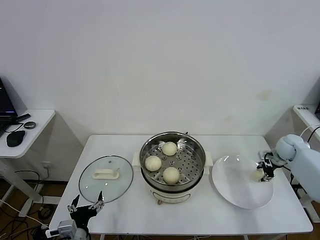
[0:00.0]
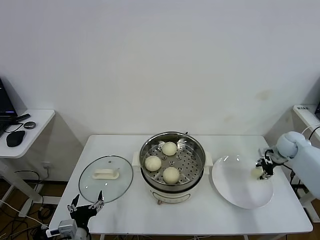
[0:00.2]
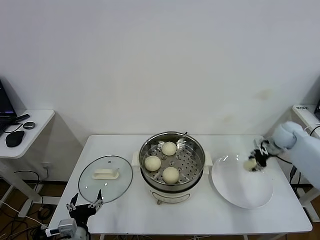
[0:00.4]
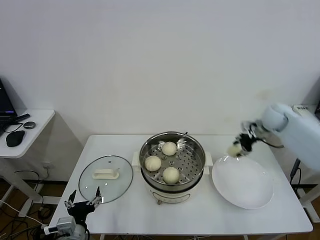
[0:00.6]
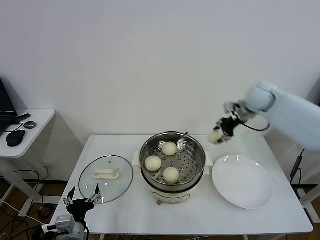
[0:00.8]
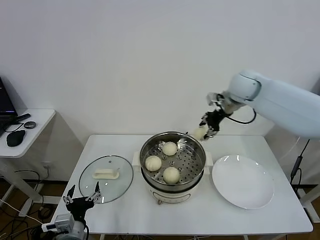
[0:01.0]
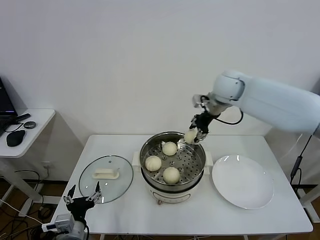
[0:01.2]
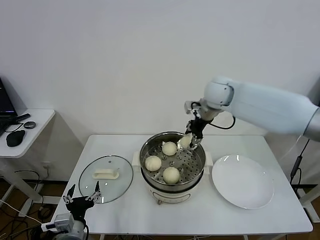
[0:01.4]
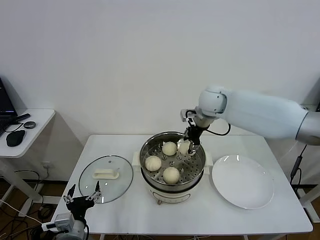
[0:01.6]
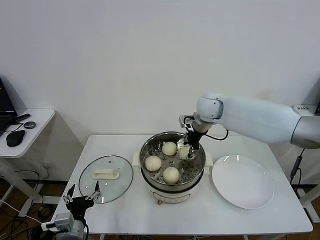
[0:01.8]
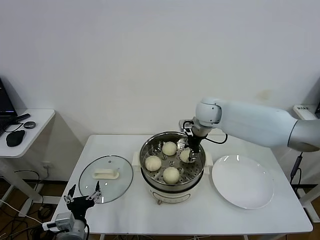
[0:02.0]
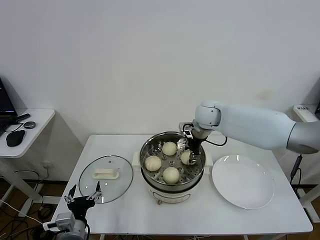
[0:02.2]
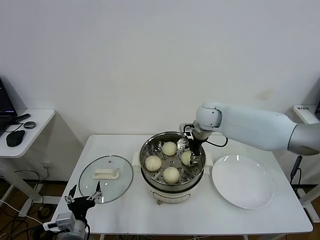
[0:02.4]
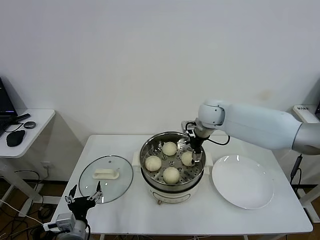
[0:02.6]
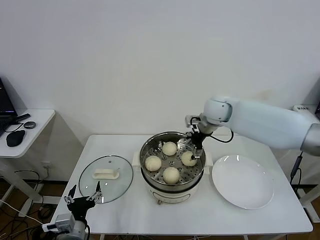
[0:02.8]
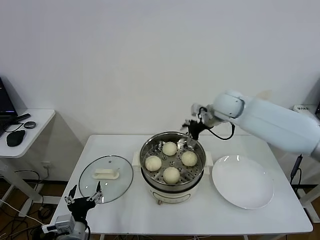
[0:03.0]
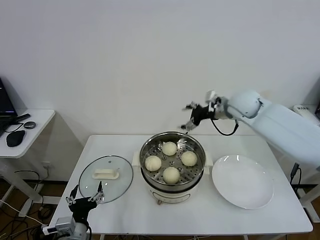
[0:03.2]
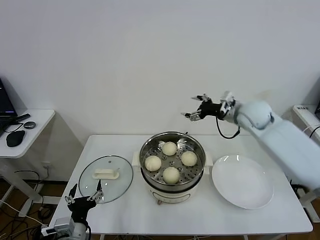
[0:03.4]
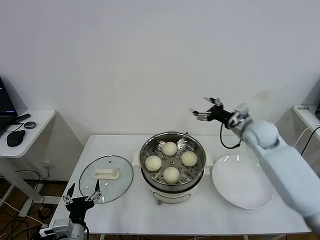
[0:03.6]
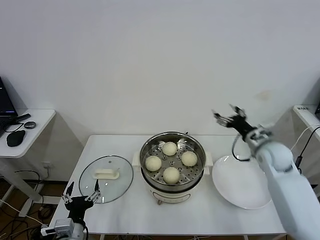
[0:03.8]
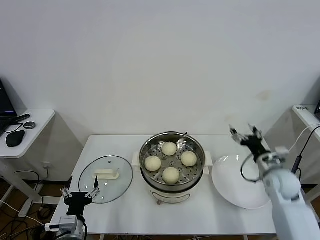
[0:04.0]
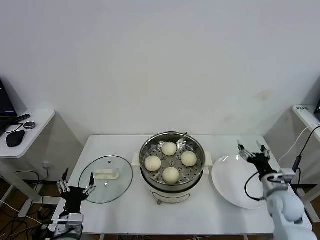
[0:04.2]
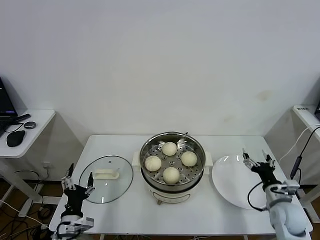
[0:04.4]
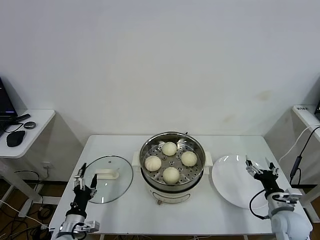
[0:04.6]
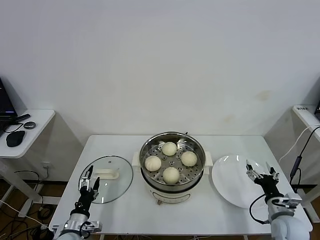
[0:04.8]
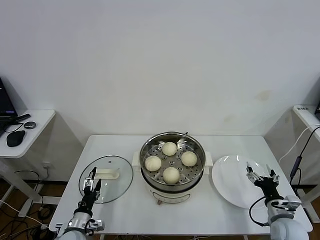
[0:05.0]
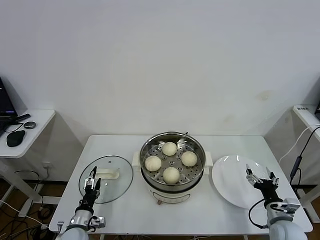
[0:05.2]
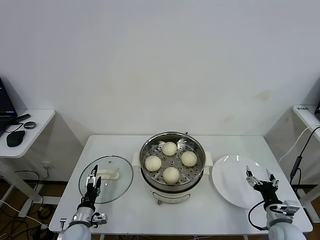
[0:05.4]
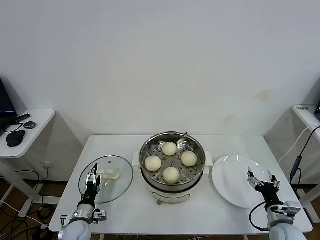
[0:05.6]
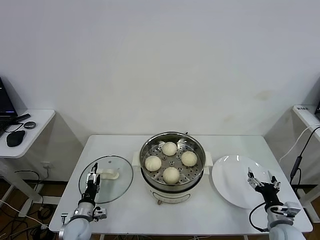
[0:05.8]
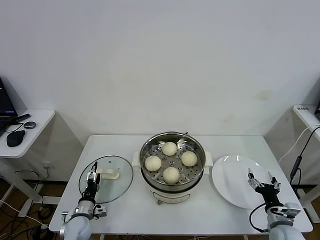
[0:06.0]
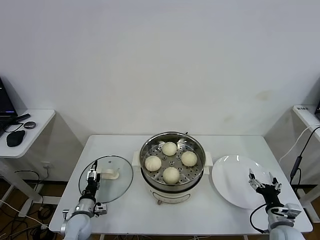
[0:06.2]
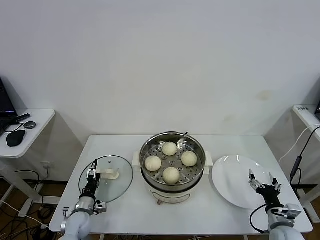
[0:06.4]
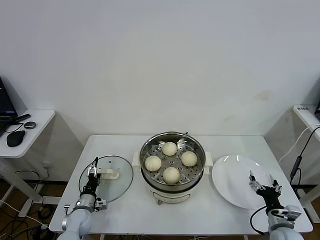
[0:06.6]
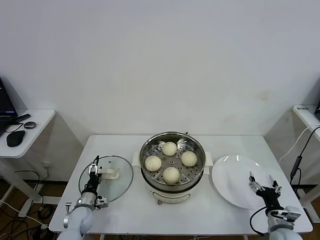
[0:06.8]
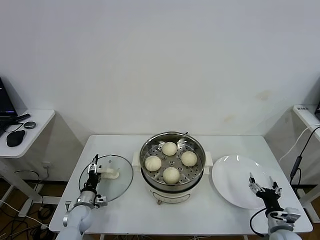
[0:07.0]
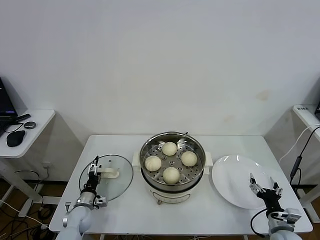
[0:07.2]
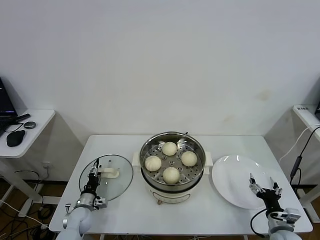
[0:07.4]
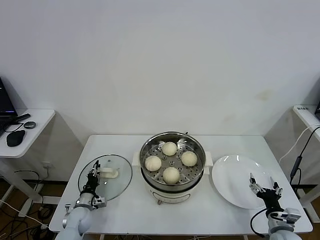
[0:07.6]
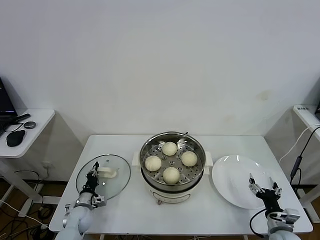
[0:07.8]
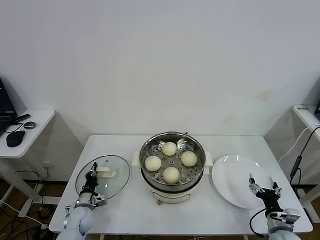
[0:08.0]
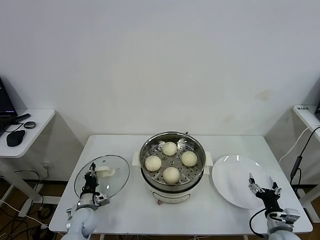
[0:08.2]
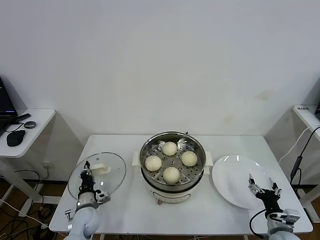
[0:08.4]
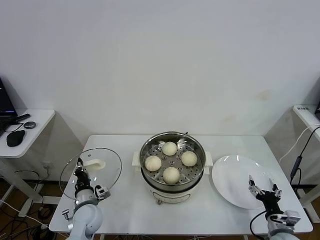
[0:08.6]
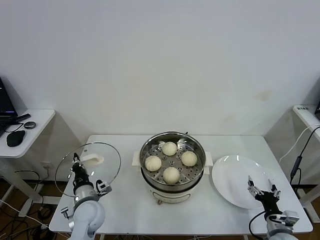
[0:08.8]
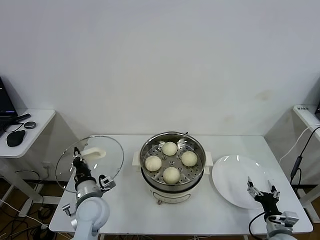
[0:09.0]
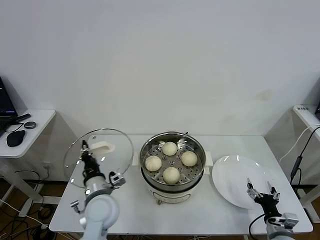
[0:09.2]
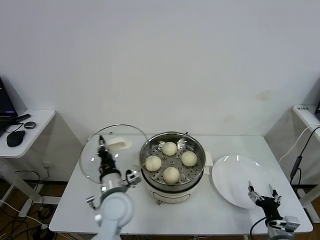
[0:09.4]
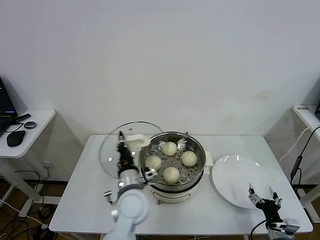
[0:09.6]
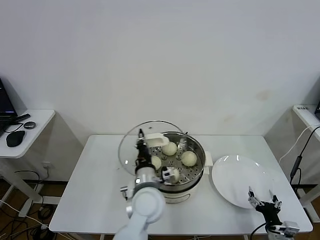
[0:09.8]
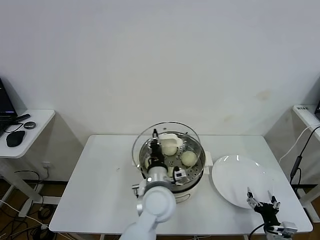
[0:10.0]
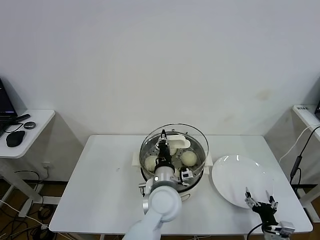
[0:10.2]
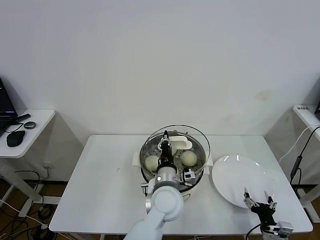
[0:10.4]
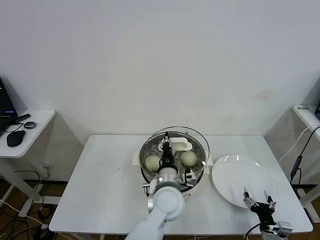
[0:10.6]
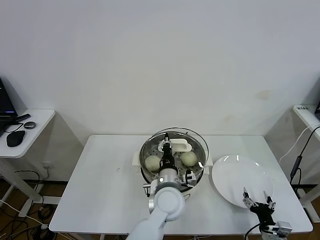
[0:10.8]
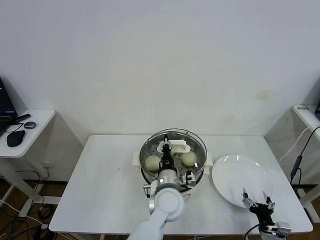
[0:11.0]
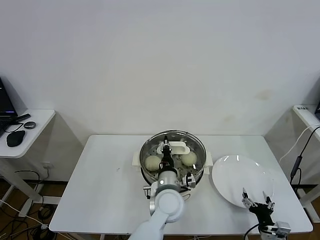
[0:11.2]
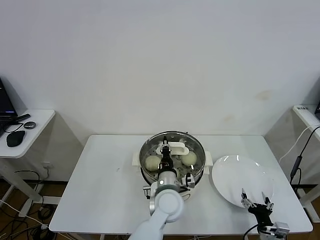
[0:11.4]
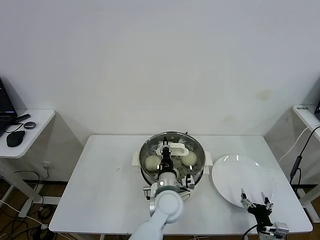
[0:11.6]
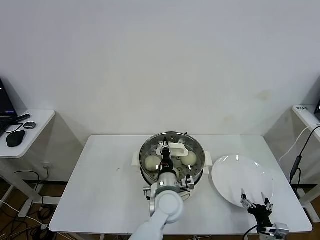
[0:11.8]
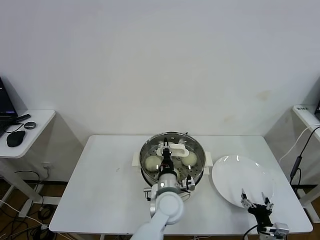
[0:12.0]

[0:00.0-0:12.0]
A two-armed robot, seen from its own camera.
Task of the whole recording: take steamed baozi put them in steamer.
Step, 0:00.0 to 0:03.0: Place the baozi on the steamer with right gripper.
Step, 0:03.2 to 0:08.0: Grasp the pot lid with left gripper.
0:00.0 to 0:01.6: The right gripper travels to the left and upward by about 40 cm.
0:01.6 to 0:03.0: The right gripper opens its fingers.
0:03.0 to 0:04.4: The left gripper shifts by about 5 cm. Meanwhile the right gripper heads backward, downward and to the right, covering about 40 cm.
0:04.4 to 0:06.0: The right gripper is displaced backward and downward by roughly 10 cm, while the left gripper travels downward and forward by about 15 cm.
0:06.0 to 0:07.6: The left gripper shifts by about 5 cm, and closes its fingers.
0:07.6 to 0:09.0: The left gripper heads upward and to the right, covering roughly 20 cm, and closes.
0:09.0 to 0:10.4: The left gripper moves to the right, roughly 25 cm.
0:10.4 to 0:12.0: The left gripper goes about 5 cm downward.

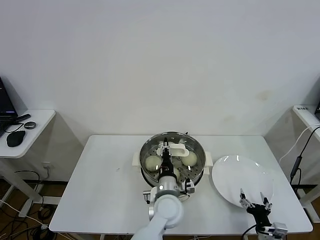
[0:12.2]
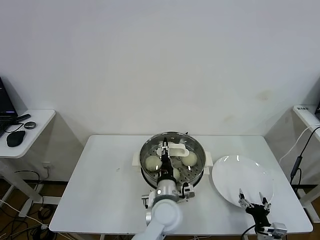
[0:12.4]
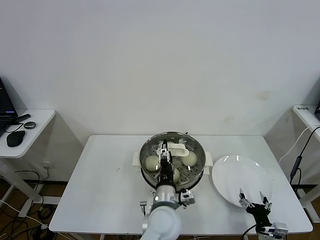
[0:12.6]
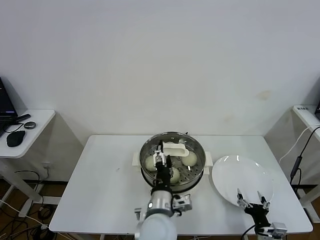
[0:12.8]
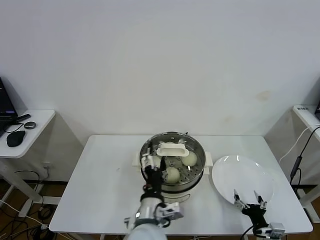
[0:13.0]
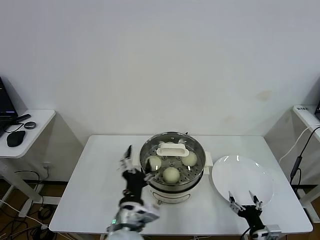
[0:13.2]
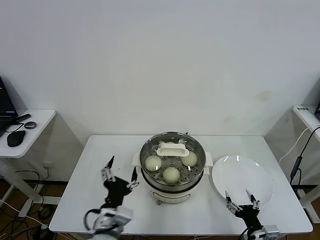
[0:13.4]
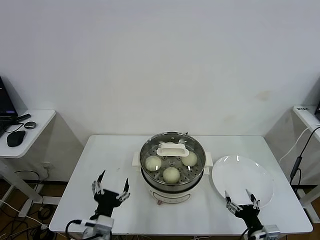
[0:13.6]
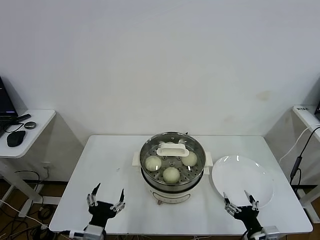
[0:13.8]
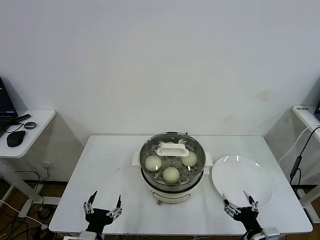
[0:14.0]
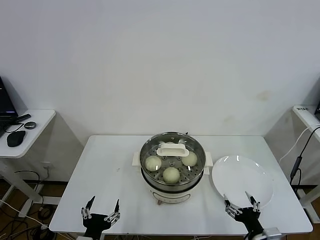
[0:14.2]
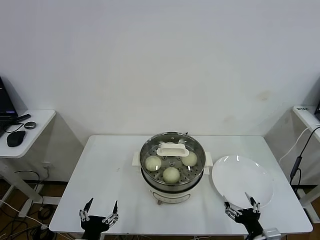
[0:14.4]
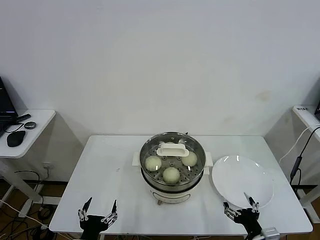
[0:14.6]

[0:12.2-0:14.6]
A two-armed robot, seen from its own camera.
Task of the whole recording: take steamed baozi put them in steamer.
0:12.2 to 0:13.4: The left gripper goes approximately 20 cm to the left, backward and upward, and opens its fingers. Meanwhile the right gripper ends up about 5 cm from where it was.
0:13.4 to 0:14.6: The left gripper moves to the left, downward and backward, approximately 15 cm, while the right gripper is displaced upward by some 5 cm.

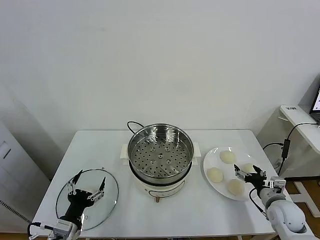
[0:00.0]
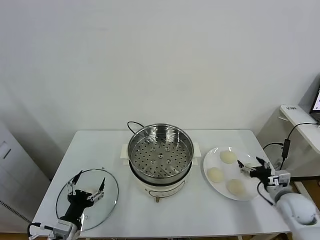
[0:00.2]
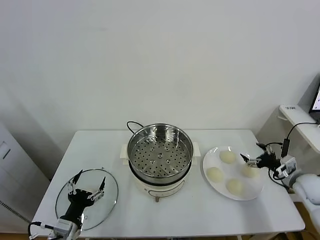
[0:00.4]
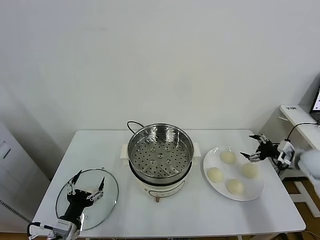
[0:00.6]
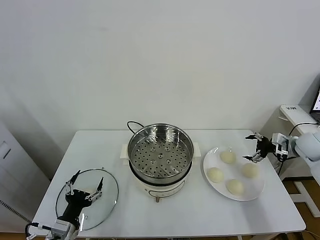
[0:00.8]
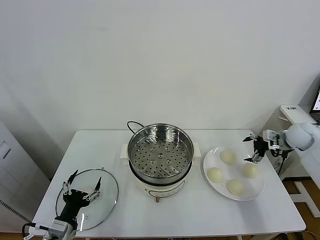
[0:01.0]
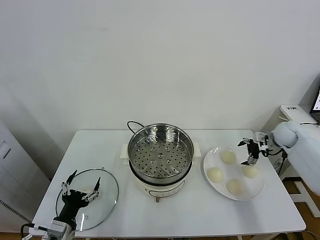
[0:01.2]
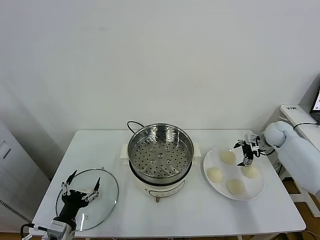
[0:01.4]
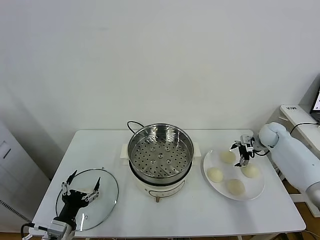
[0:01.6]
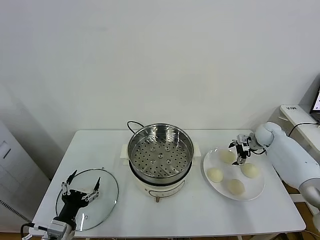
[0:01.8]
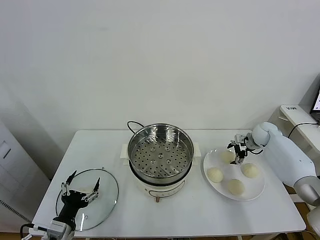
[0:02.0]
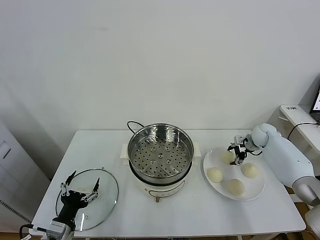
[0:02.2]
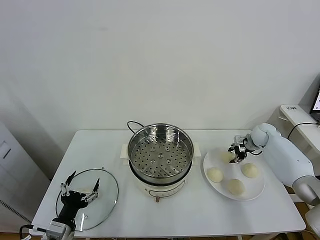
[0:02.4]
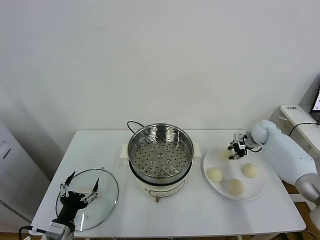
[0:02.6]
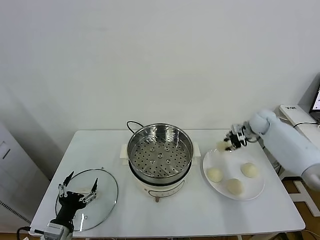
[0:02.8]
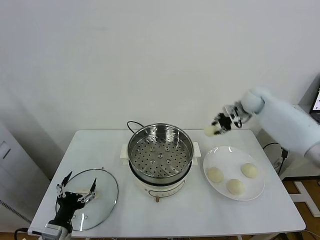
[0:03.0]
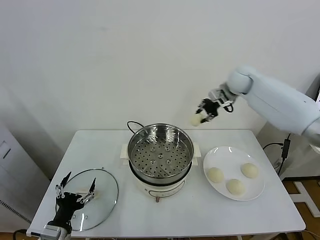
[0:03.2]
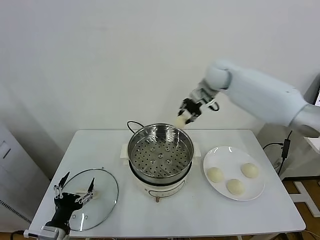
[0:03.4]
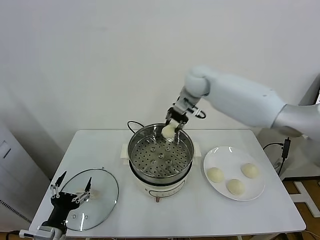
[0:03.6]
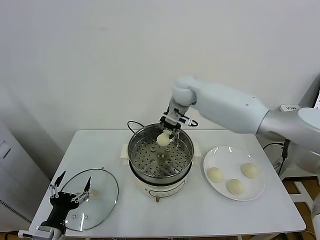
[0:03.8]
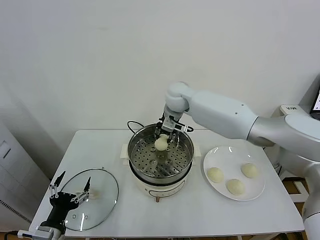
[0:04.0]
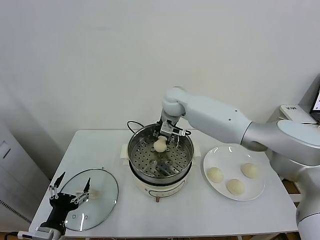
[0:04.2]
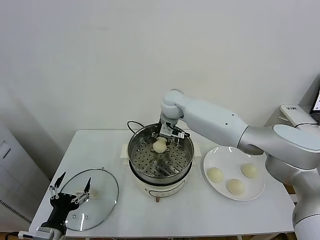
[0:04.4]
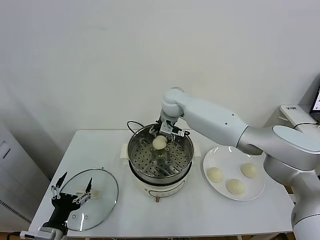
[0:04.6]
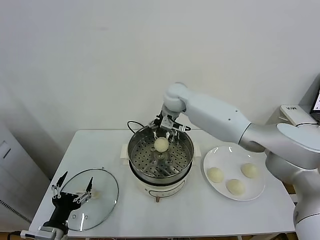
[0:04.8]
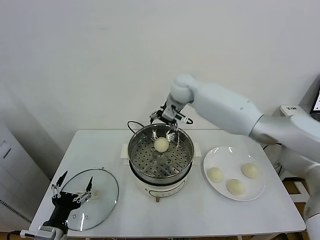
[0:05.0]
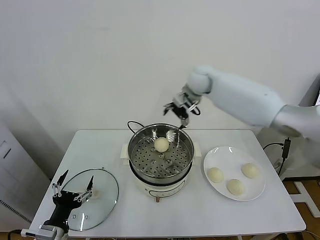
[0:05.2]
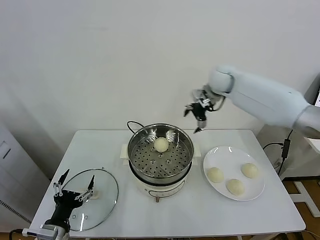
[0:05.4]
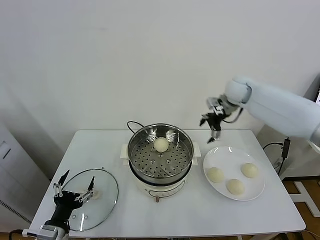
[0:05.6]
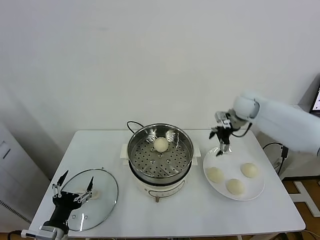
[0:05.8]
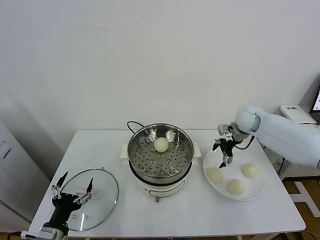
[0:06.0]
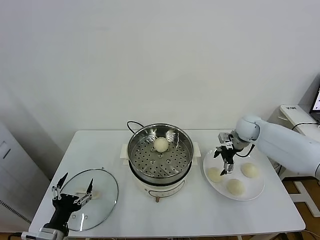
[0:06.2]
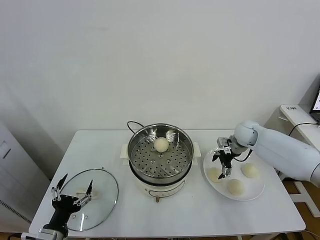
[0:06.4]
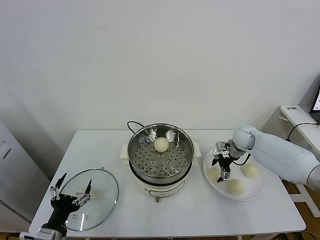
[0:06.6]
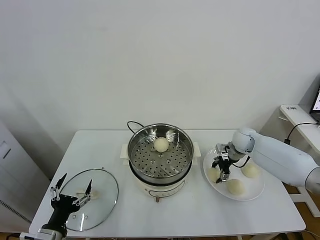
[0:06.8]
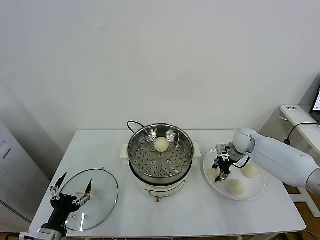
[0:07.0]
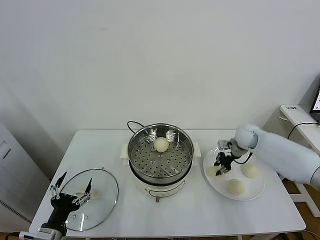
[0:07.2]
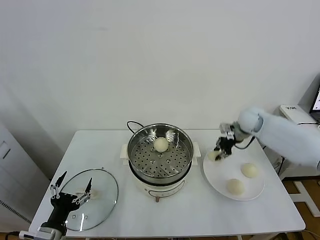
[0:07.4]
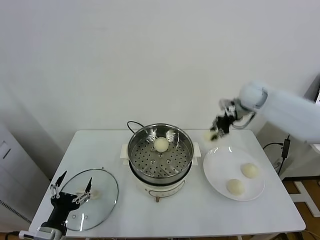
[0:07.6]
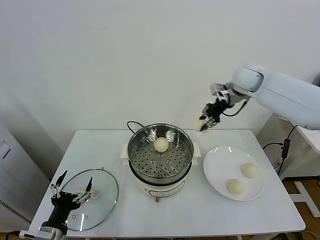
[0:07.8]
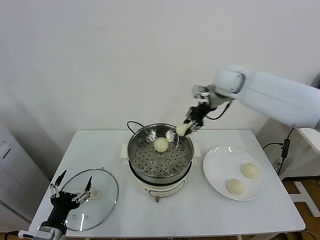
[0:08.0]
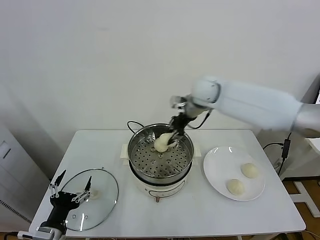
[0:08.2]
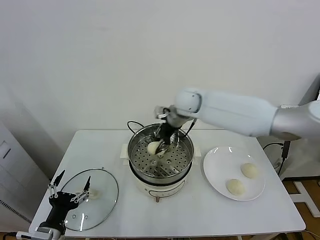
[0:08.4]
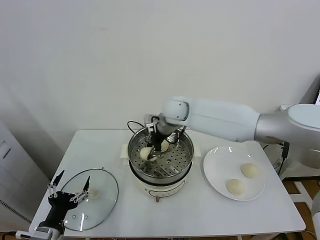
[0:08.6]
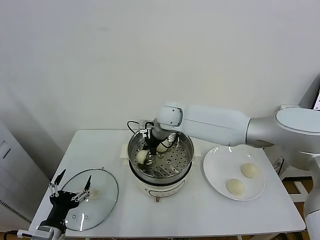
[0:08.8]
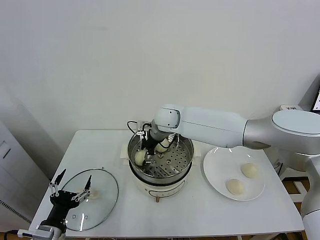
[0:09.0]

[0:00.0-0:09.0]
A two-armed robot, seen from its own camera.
Task of the whole recording: take steamed baozi put them in steamer.
Step, 0:00.0 to 0:02.2: Grasp the baozi in the plate with right gripper.
Step, 0:02.4 to 0:04.6: Place the baozi on the steamer with right gripper.
Step, 0:04.8 to 0:06.6: Grasp the baozi in the plate with right gripper.
0:01.6 to 0:03.0: The right gripper travels upward and to the left by approximately 20 cm, and closes up.
0:03.0 to 0:04.4: The right gripper travels to the left by approximately 30 cm, and opens its fingers.
0:04.4 to 0:06.0: The right gripper travels to the right by some 30 cm, and opens its fingers.
0:06.0 to 0:07.6: The right gripper moves upward, approximately 10 cm, and closes up.
0:07.6 to 0:09.0: The right gripper travels to the left by roughly 30 cm, and opens up.
